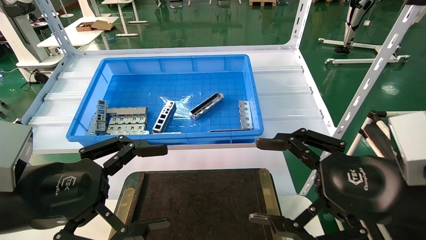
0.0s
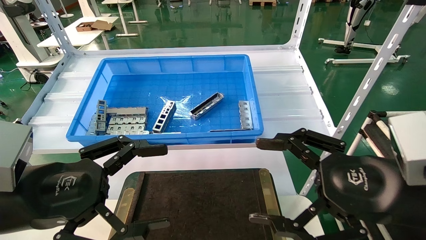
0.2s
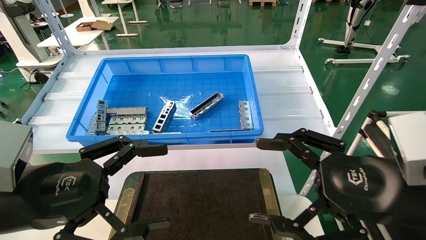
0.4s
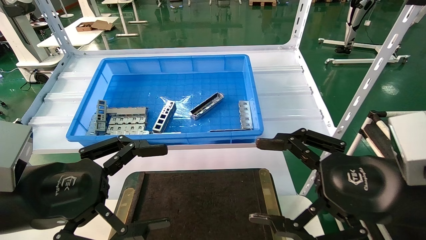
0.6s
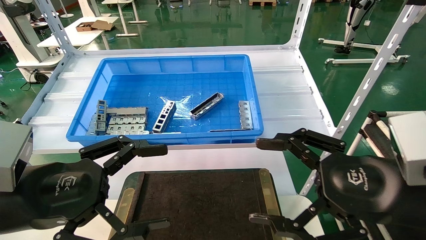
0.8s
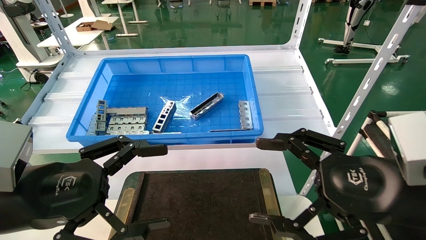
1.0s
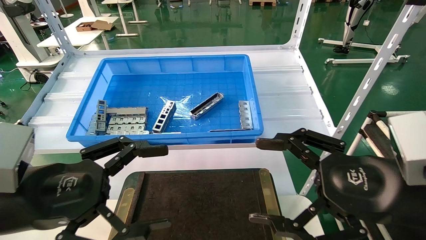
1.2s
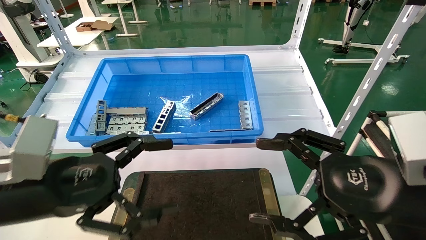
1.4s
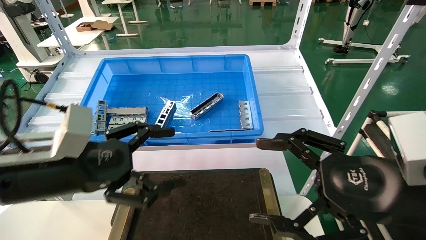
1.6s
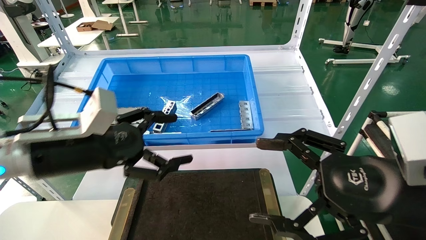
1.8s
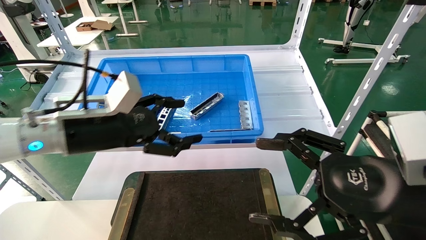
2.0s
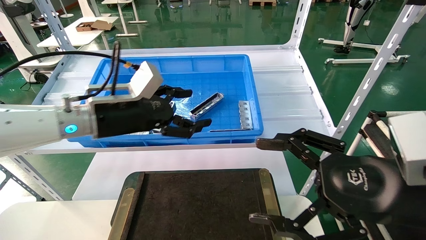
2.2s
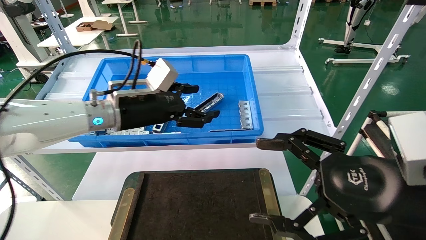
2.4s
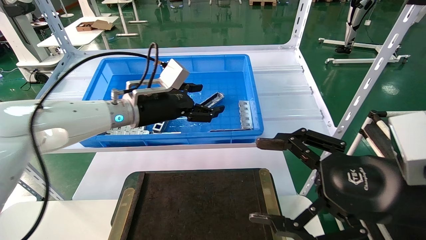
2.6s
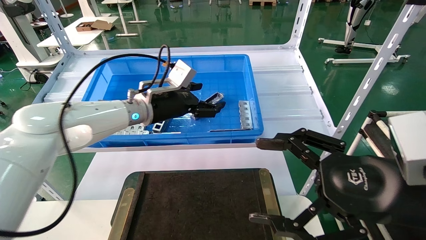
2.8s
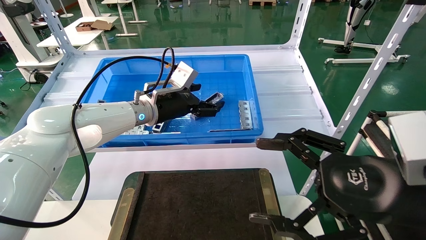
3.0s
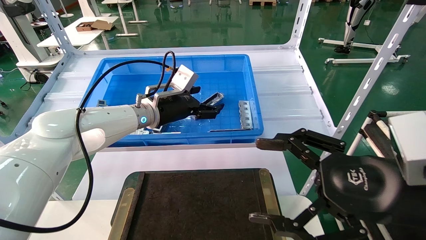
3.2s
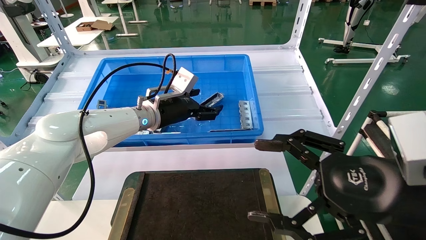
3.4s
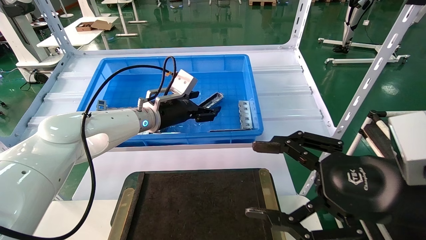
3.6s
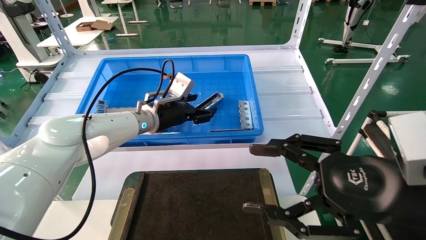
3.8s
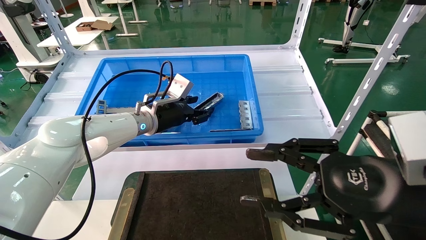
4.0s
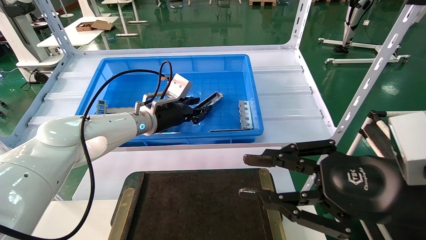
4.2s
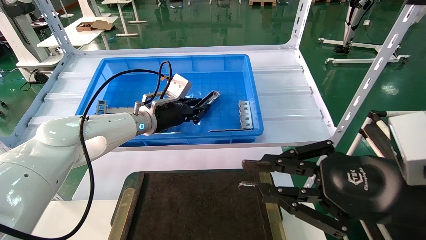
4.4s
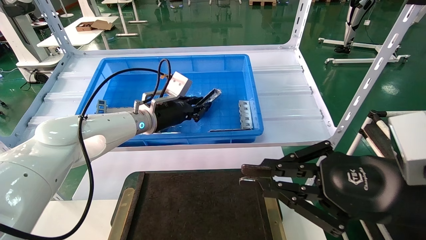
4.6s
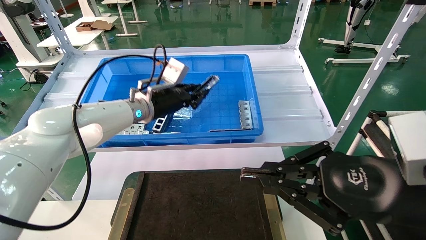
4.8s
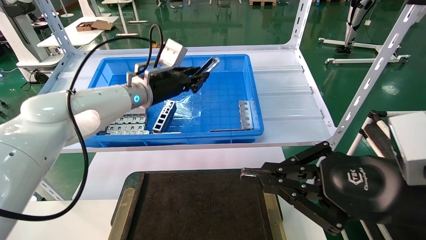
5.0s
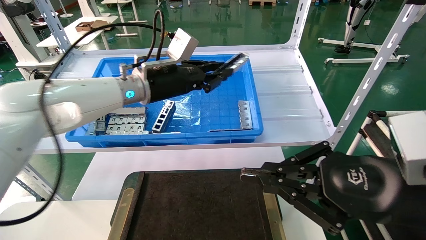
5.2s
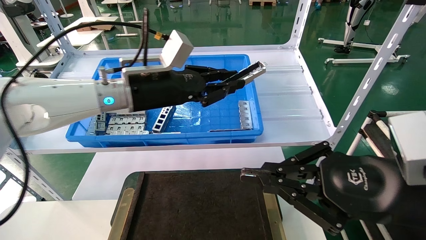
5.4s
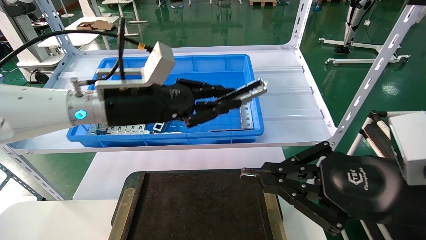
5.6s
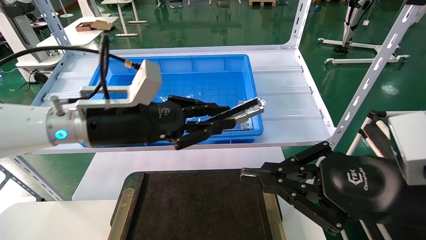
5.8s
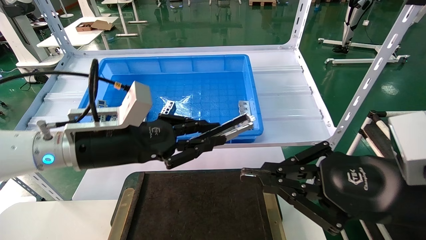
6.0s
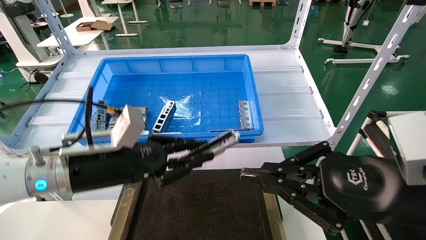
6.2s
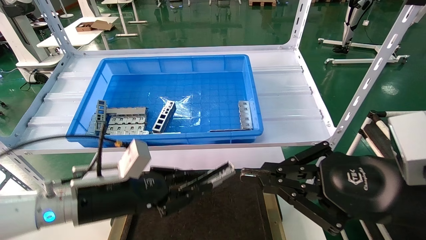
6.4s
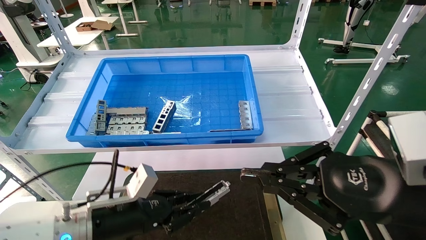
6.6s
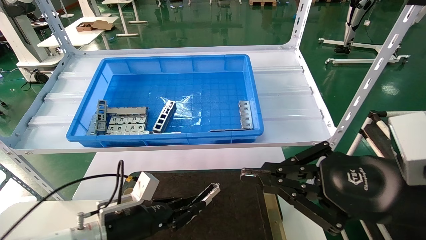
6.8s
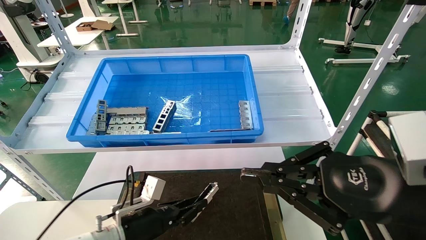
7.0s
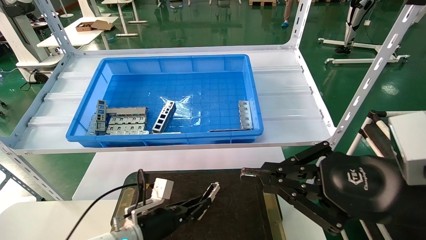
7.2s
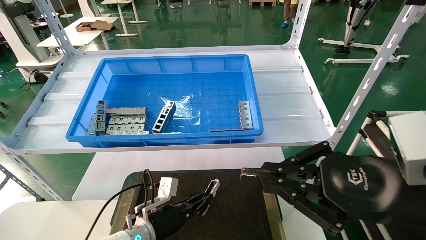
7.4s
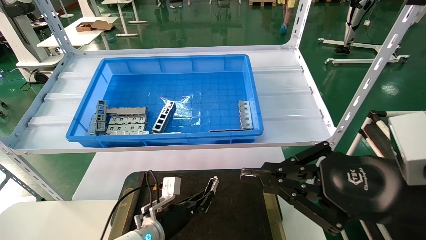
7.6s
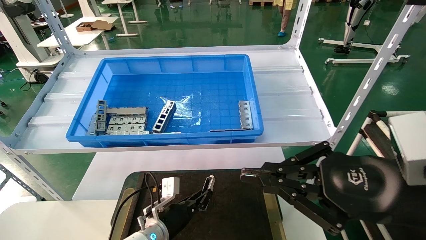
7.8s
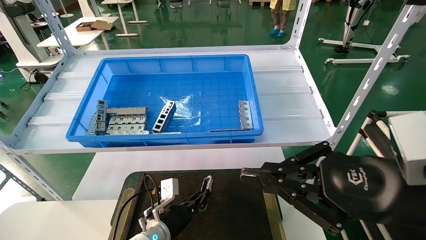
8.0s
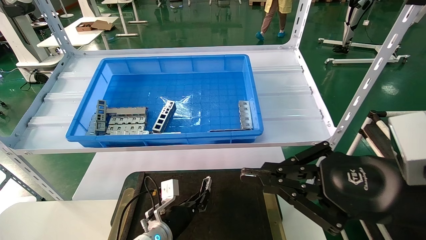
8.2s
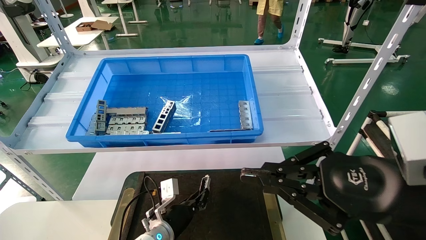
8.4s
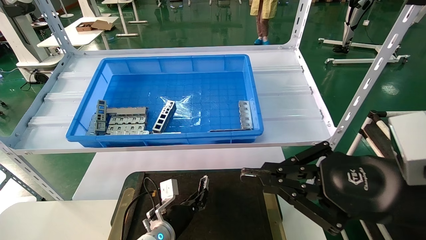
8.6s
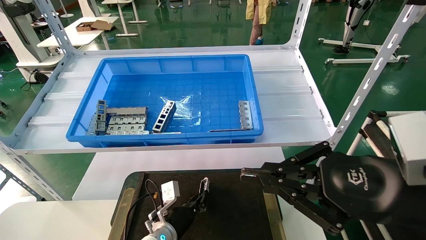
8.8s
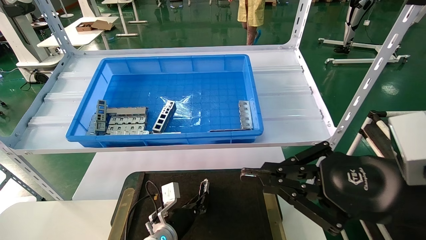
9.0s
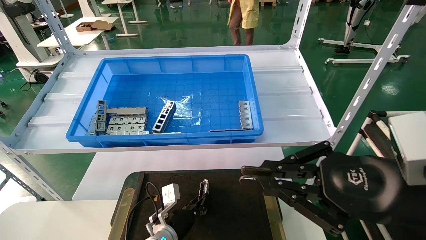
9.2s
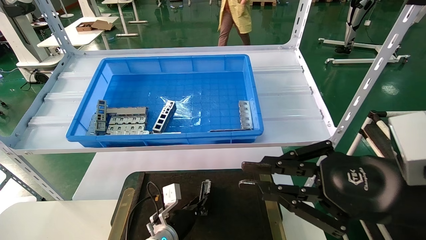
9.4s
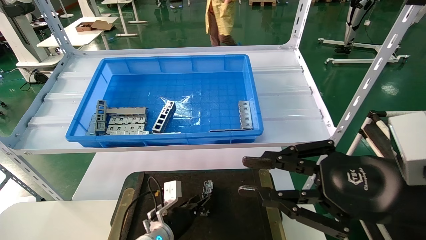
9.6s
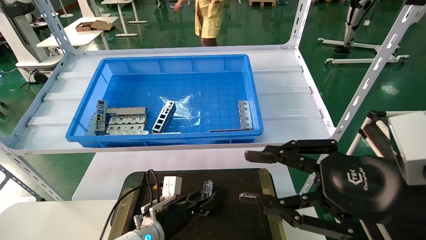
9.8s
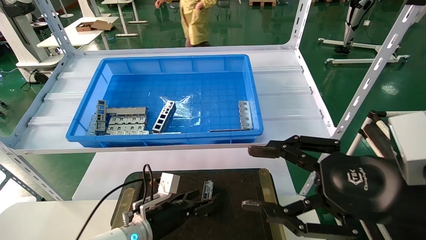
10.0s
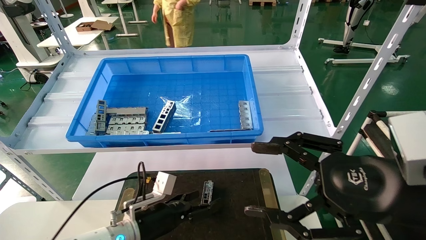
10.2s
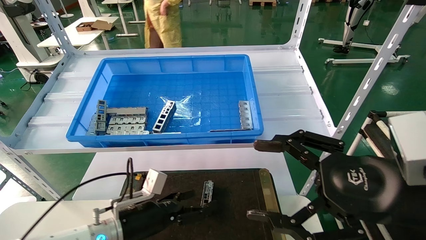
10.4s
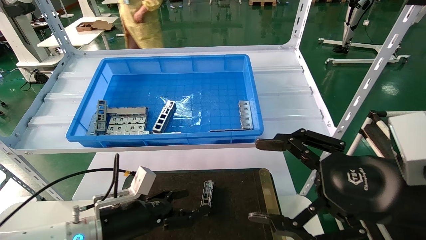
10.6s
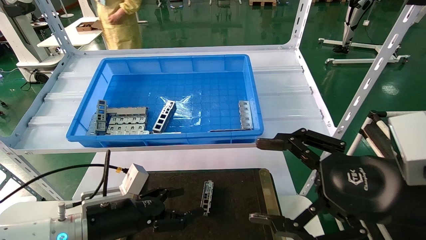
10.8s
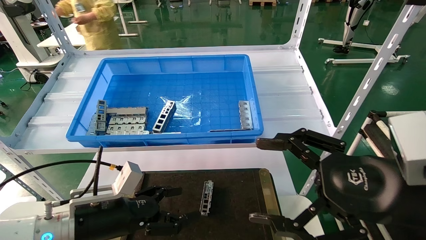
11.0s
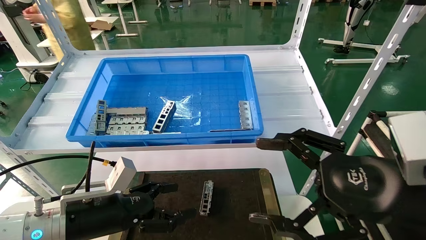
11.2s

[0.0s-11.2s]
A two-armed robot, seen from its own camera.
Task of the whole recording: Grasp the part with one hand and place it on the black container.
Step, 1.8s to 5.0s: Pick up the front USB bracket from the feeding area.
Step, 5.2s to 9.6s: Place the front USB bracket into the box.
0.0s to 1.6s: The left gripper heads forward, covering roughly 5 cm.
1.6s to 3.2s: The left gripper moves forward and to the right, roughly 25 cm.
3.2s to 4.8s: The right gripper closes. Meanwhile the left gripper closes.
4.8s to 6.4s: The left gripper shifts about 20 cm backward and downward.
6.4s to 8.0s: The left gripper shifts about 25 cm downward, forward and to the right.
8.0s to 9.6s: There are only small adjustments of the grippers.
9.6s to 11.2s: The left gripper goes roughly 20 cm upward, to the left and backward, and opens its fingers. The right gripper opens up.

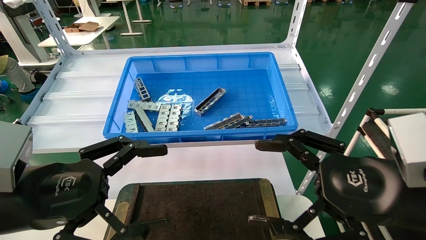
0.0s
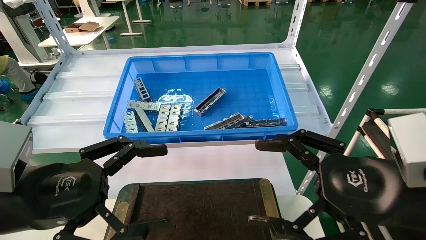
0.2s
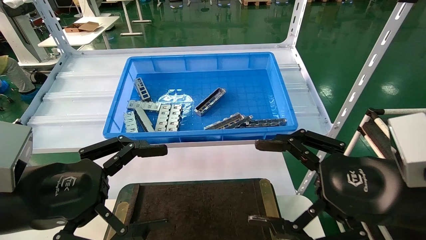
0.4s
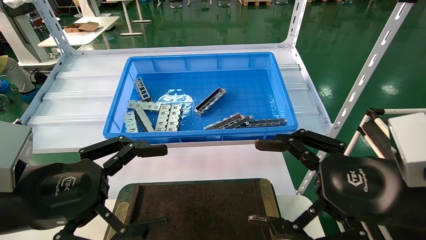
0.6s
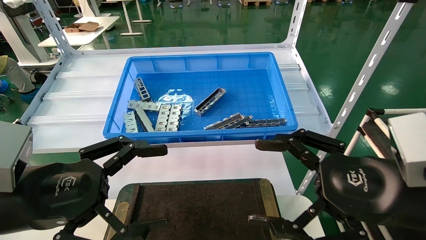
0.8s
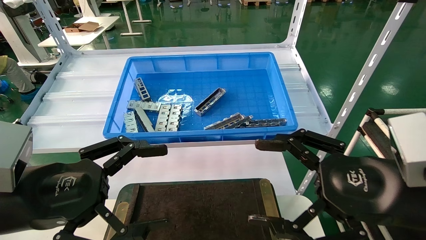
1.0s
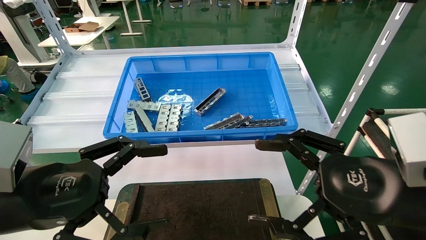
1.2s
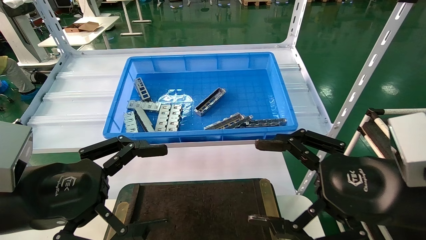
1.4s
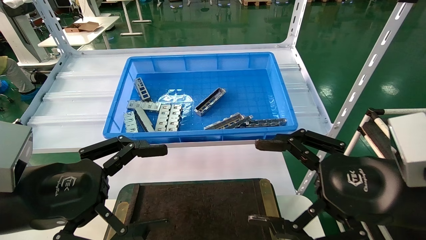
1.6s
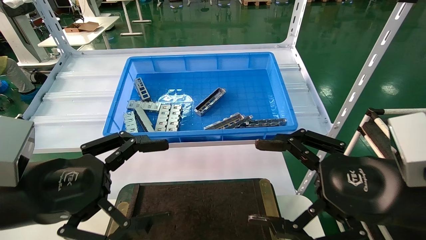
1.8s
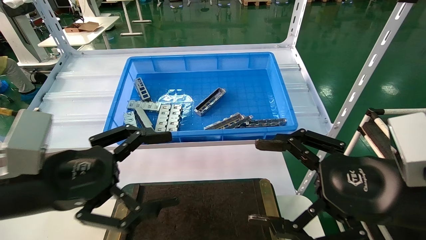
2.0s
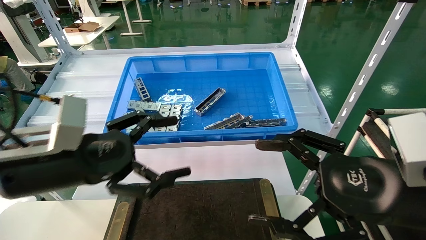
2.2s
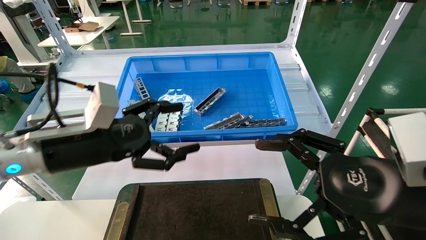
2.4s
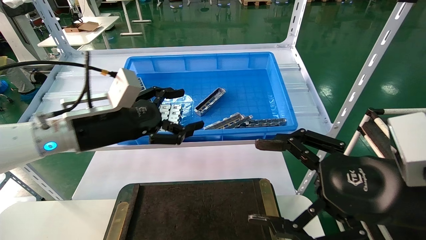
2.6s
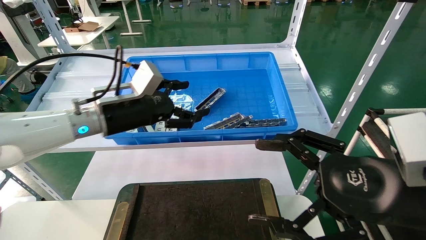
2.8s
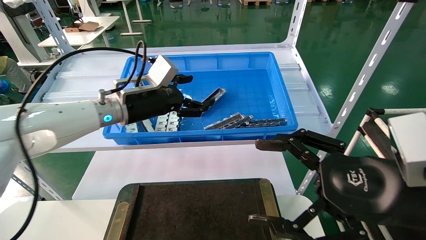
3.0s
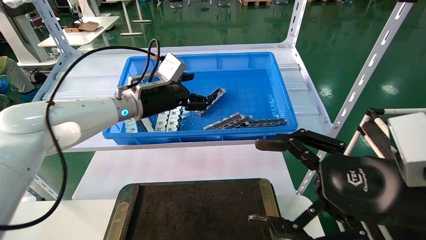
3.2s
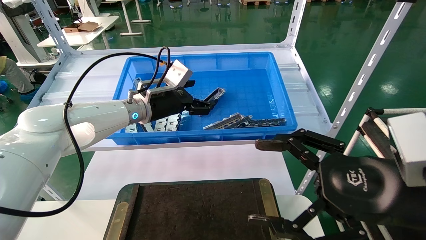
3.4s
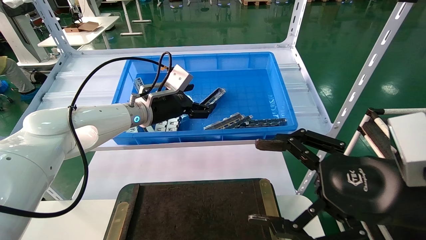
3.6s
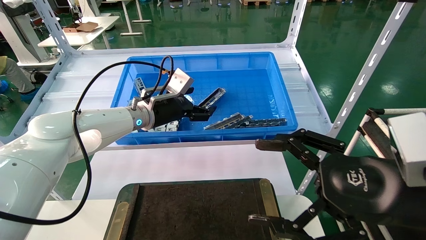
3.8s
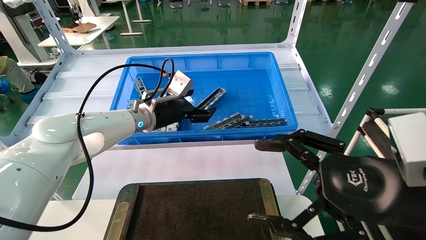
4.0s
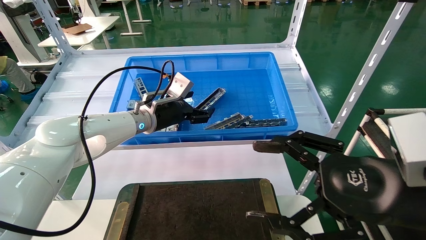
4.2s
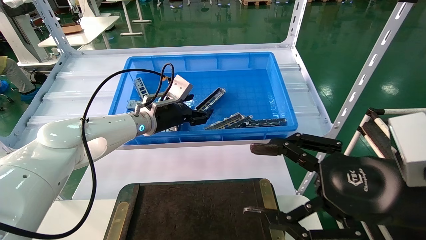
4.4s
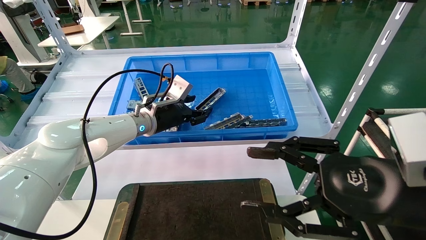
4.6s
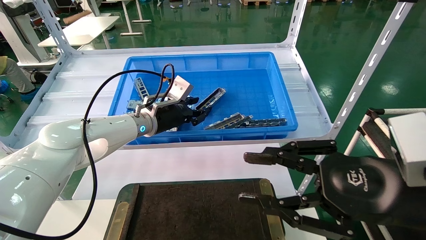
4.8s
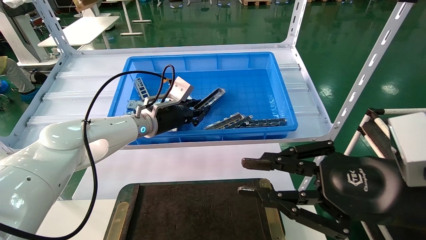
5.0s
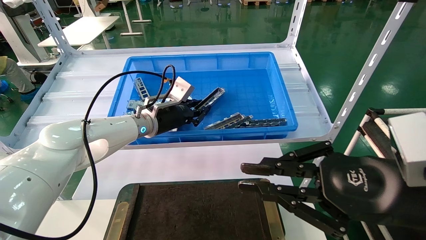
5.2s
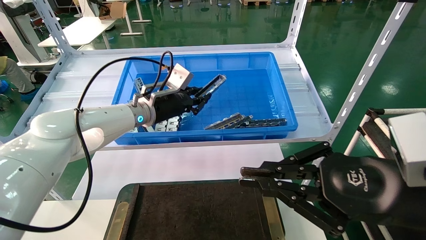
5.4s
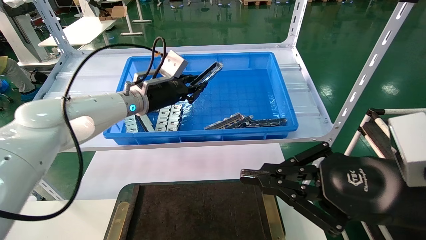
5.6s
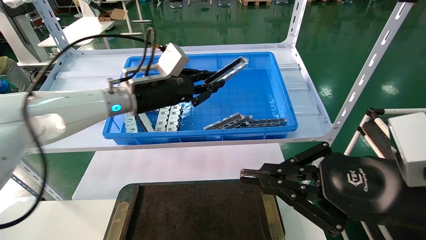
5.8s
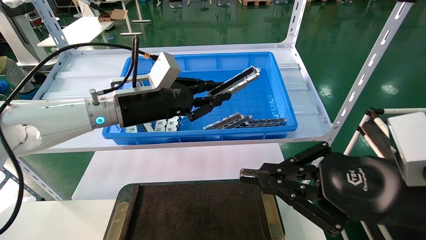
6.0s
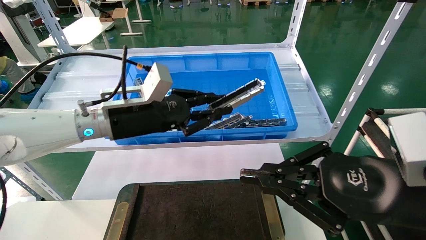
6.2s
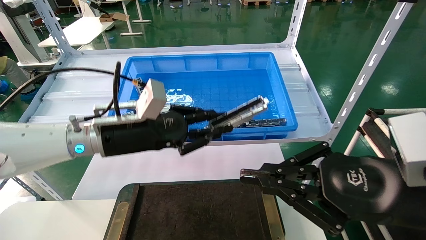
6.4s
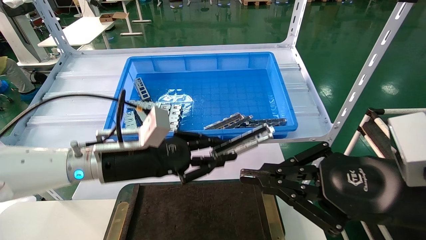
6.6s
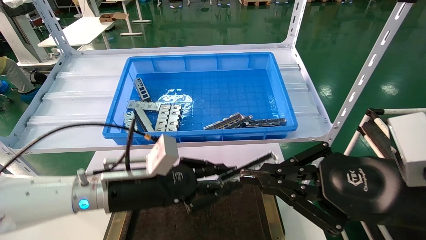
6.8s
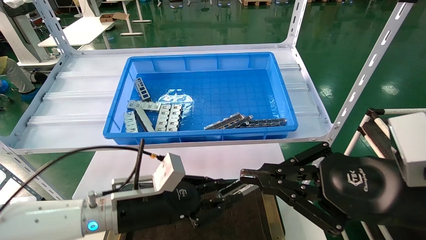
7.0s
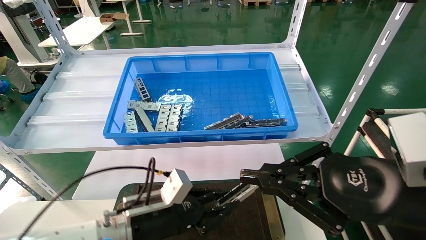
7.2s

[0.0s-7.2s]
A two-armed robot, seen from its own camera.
Task of the whole recording: Grasp the part with one hand and place it on the black container.
Step, 2.0s to 5.0s: Pick up the front USB bracket from the feeding area.
0.0s to 1.4s: Neither gripper changes place.
1.4s to 2.8s: The left gripper goes some 20 cm forward.
2.8s to 4.4s: The left gripper heads forward and to the right, covering roughly 10 cm.
4.4s to 5.8s: The left gripper is displaced upward and backward by approximately 10 cm, and closes its fingers. The right gripper closes its fingers.
5.8s to 7.2s: The left gripper moves downward and backward, about 25 cm.
